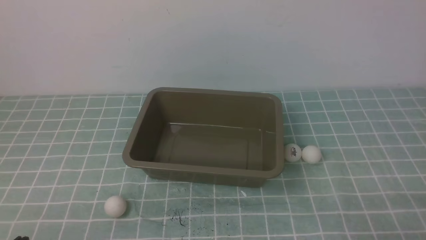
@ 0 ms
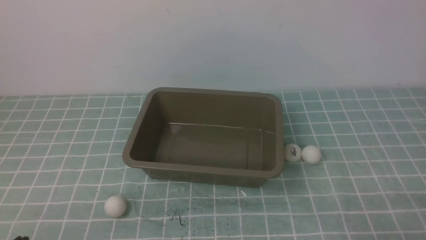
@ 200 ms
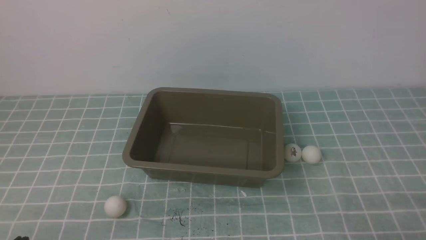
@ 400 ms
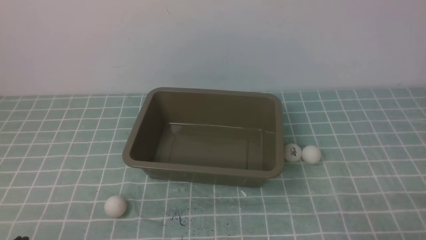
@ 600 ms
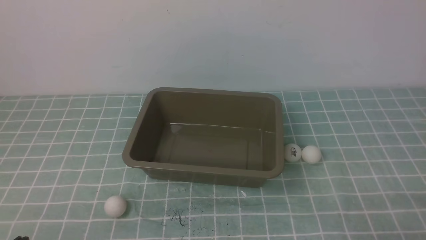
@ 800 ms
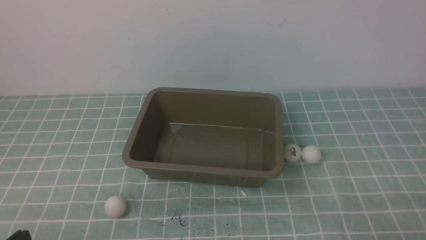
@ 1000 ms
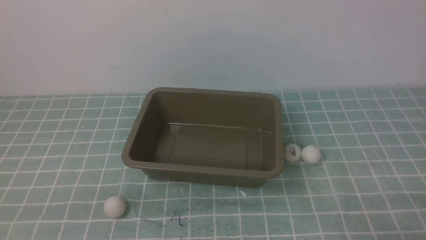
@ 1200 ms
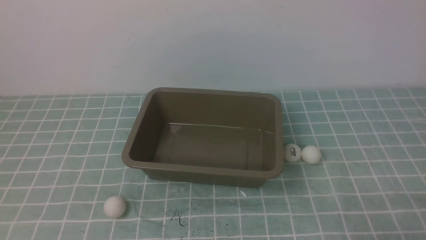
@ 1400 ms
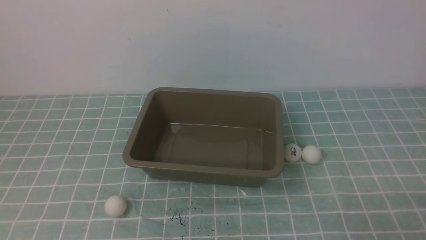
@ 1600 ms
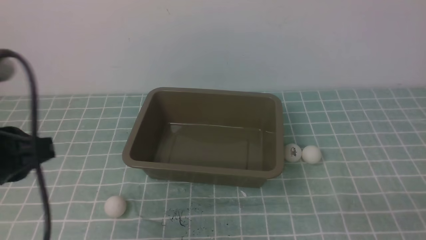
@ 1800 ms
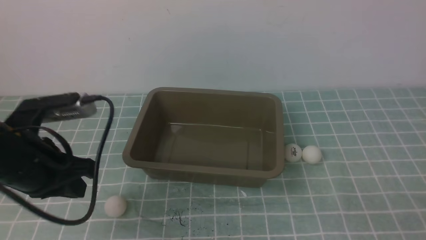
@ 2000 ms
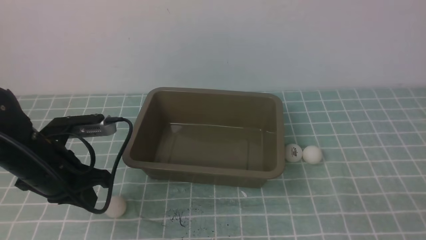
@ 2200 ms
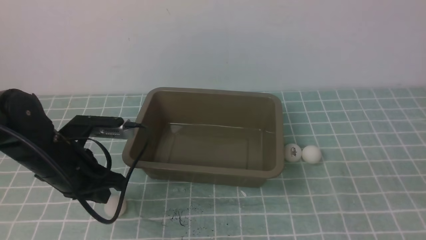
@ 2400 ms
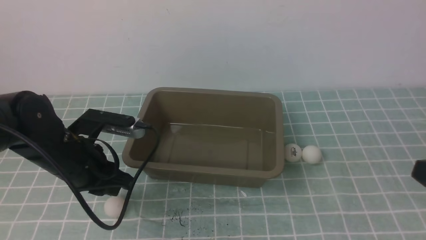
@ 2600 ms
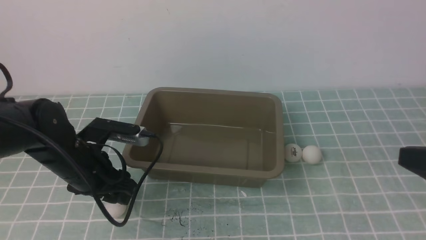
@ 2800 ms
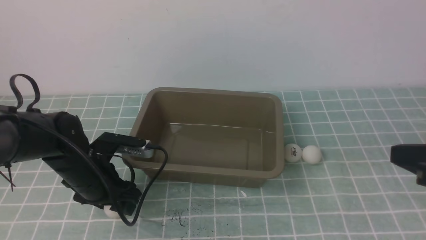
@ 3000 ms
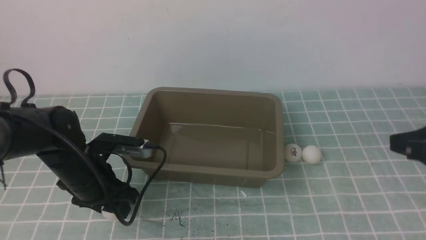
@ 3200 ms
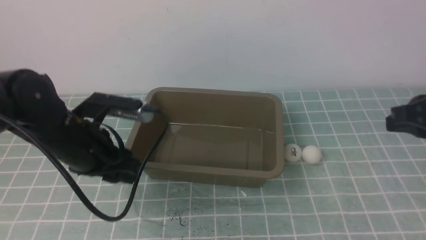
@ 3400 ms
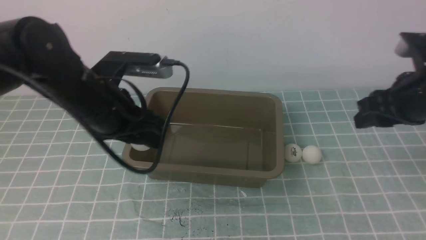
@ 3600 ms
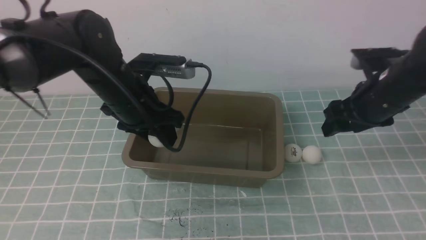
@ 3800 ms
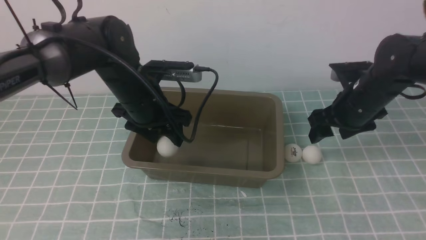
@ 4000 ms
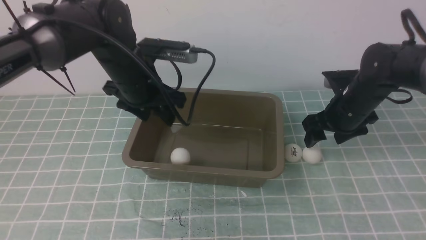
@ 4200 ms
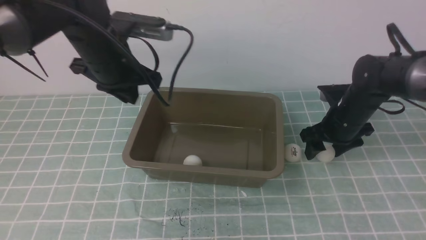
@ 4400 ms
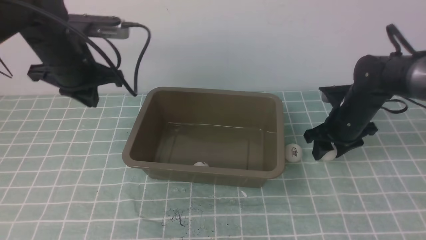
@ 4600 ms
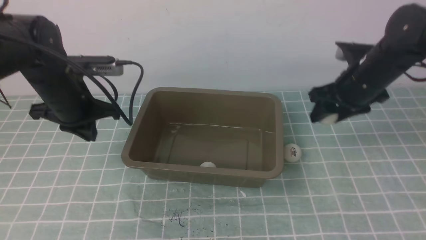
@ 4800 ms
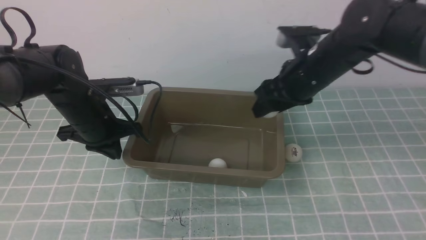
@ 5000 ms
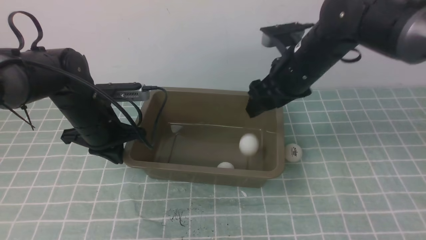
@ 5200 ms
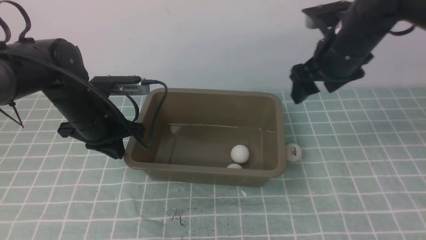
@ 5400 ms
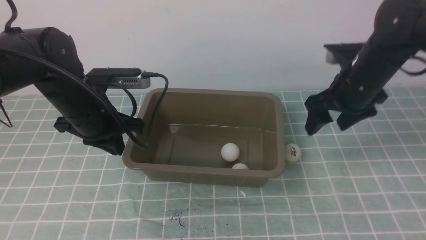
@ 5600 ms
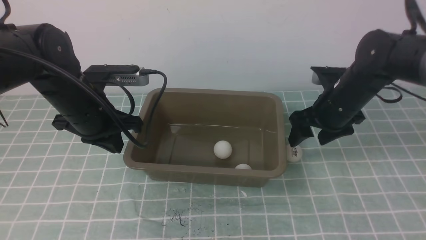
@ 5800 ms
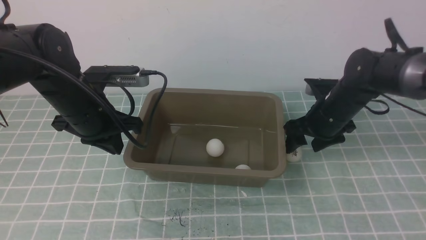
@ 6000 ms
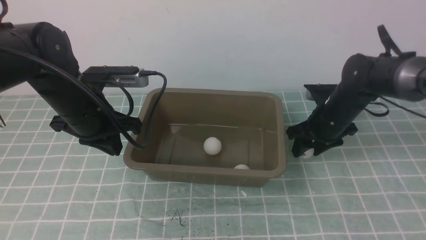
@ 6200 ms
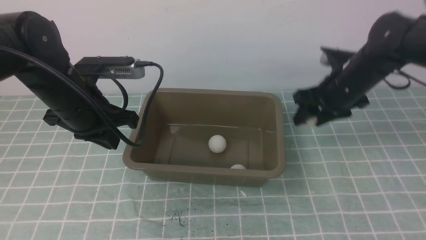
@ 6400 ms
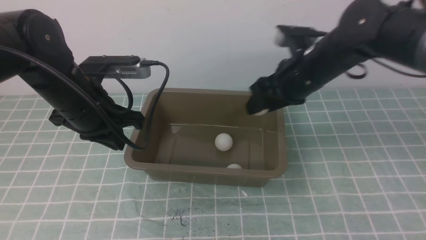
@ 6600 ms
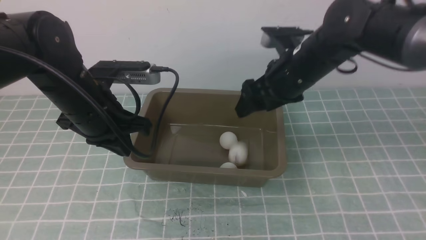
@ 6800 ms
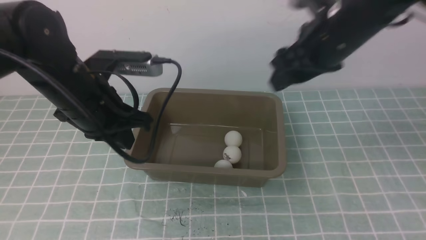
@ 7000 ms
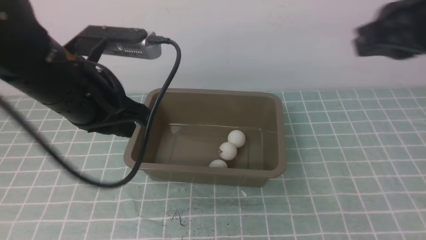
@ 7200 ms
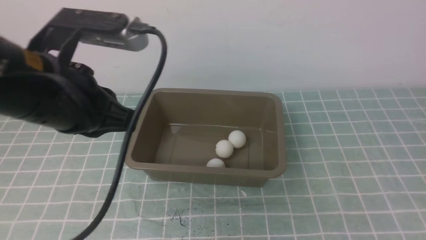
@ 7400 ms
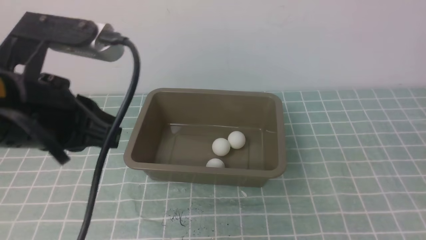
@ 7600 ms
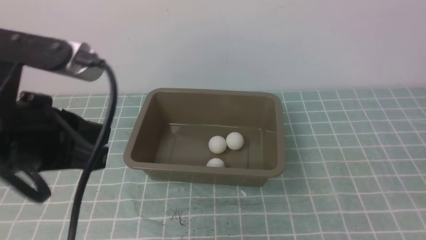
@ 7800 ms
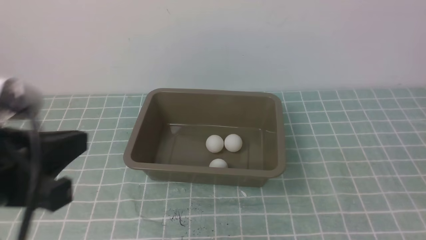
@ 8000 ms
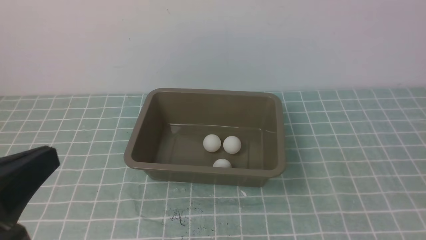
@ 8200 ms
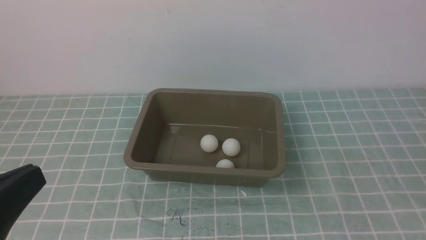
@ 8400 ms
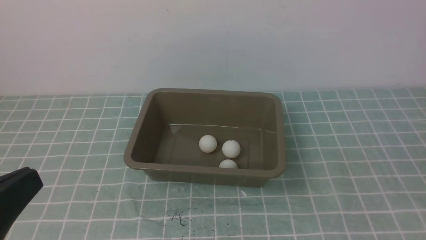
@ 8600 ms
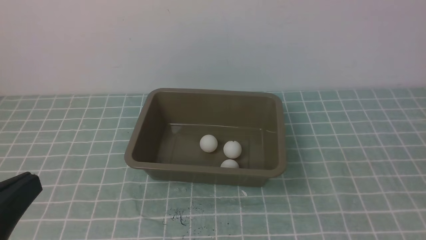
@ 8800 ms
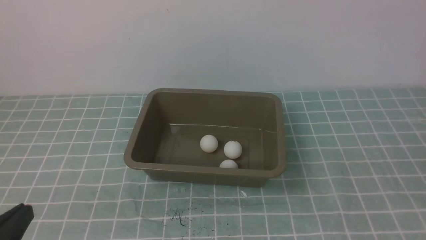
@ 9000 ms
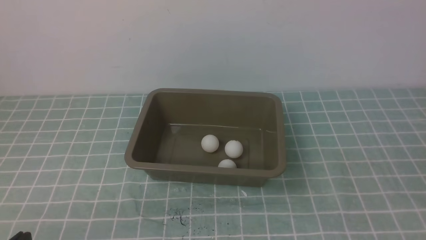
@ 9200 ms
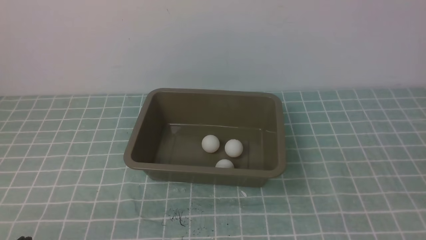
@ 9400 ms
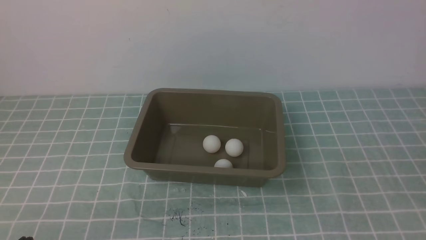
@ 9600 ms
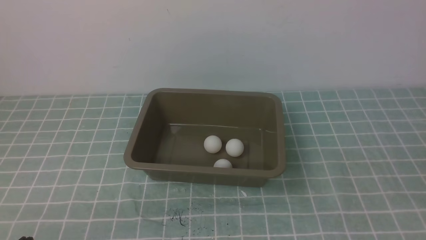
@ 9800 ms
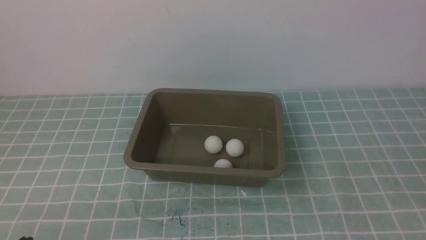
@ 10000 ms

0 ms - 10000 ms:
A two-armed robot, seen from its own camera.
Step, 0 ms - 3200 ms: use the left arm to clamp the table tennis ball closest to it.
Step, 3600 ms - 4000 ms: use the left arm to put the table tennis ball into the box.
Step, 4200 ms - 4400 ms: use the right arm to clamp the table tennis ball closest to it.
Step, 4800 ms - 5200 ms: use the right arm to put the table tennis ball into the box.
Step, 5400 ms - 6200 ms: use the right arm to clamp the table tennis ball closest to it.
Step, 6400 ms - 6800 ms: use the right arm to put the table tennis ball into the box.
1400 ms - 2800 ms: The right gripper is displaced upward and forward by some 15 cm, while the left gripper travels forward by approximately 25 cm, and opens up.
2800 ms - 4200 ms: The left gripper goes some 15 cm forward, upward and to the right. Meanwhile the right gripper goes about 30 cm forward and downward, and opens.
4200 ms - 5800 ms: The left gripper is displaced to the left by about 5 cm, and closes its fingers; the right gripper moves some 10 cm upward and comes back.
5800 ms - 7200 ms: The left gripper is displaced upward and backward by about 10 cm. The right gripper moves upward and backward, about 20 cm, and closes up.
7200 ms - 8600 ms: The right gripper shifts about 30 cm backward, to the right and downward, while the left gripper travels backward by about 20 cm.
8600 ms - 10000 ms: The left gripper is displaced downward by about 15 cm.

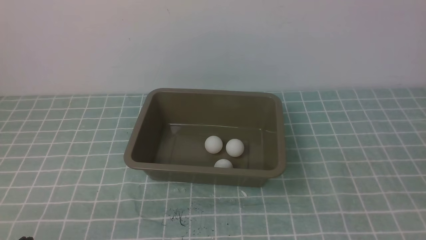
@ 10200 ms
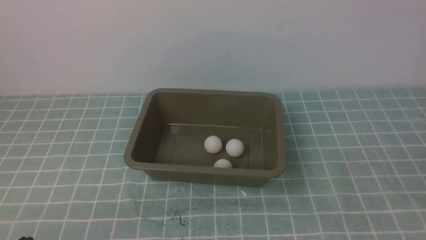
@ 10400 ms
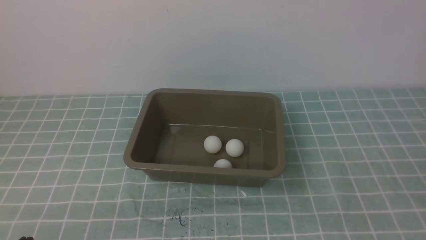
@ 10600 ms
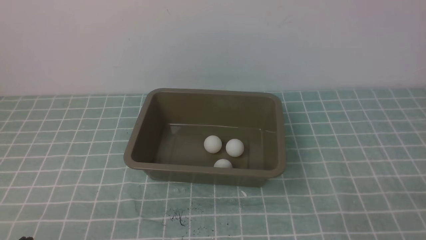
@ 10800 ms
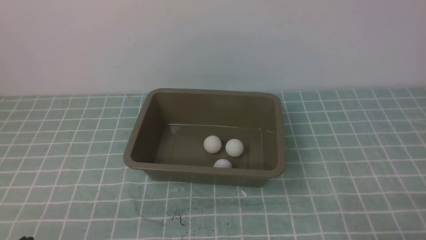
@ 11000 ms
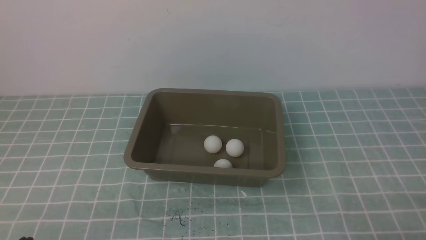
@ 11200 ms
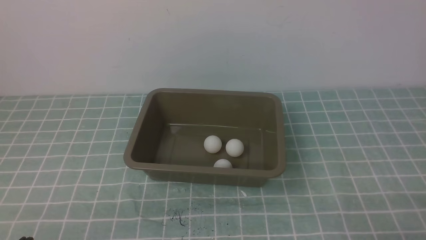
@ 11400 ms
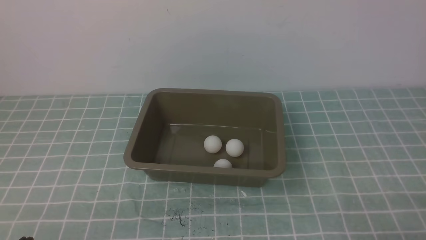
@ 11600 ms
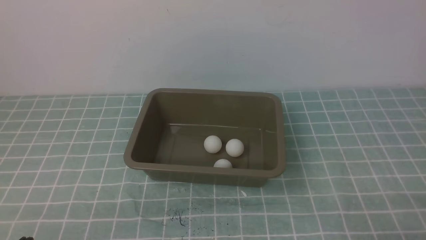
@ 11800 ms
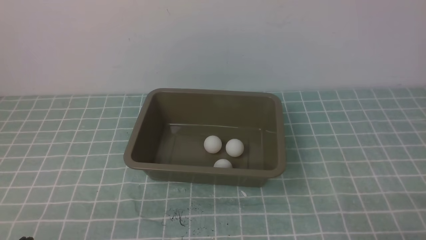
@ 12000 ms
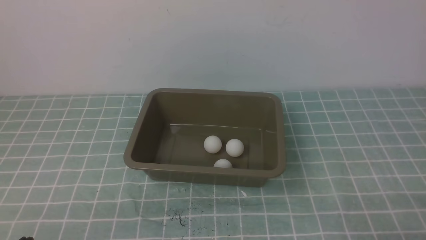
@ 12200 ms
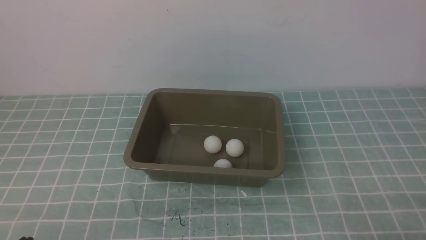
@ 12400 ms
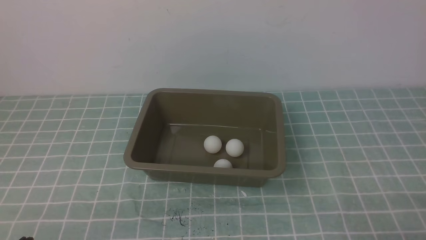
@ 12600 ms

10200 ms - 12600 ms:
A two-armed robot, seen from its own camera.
11400 ms - 12600 ms: Neither gripper changes place.
